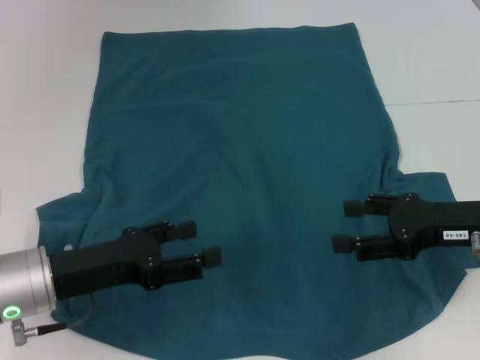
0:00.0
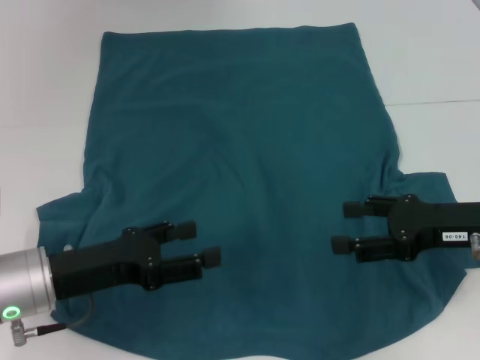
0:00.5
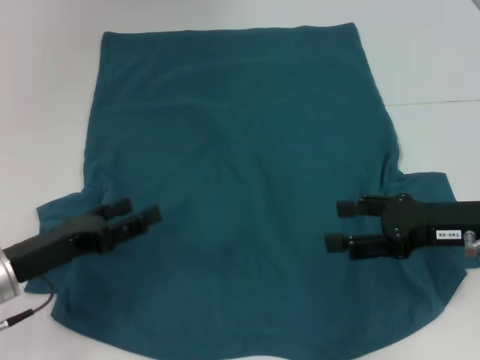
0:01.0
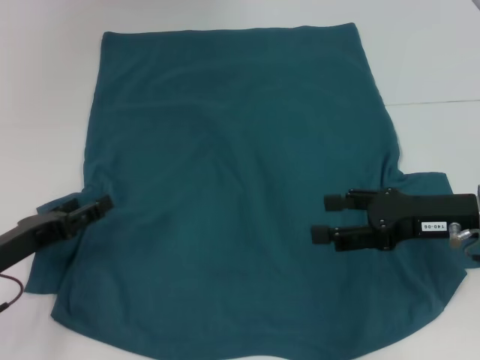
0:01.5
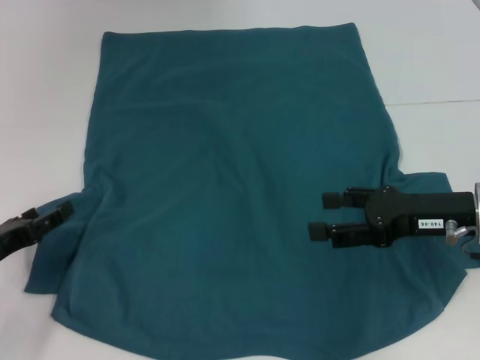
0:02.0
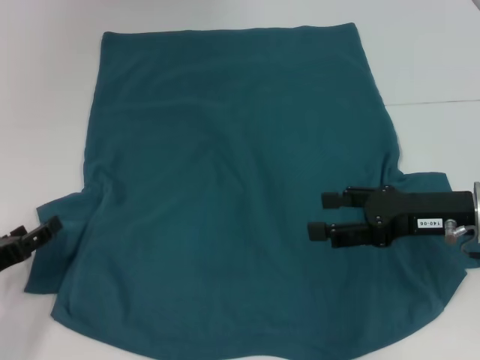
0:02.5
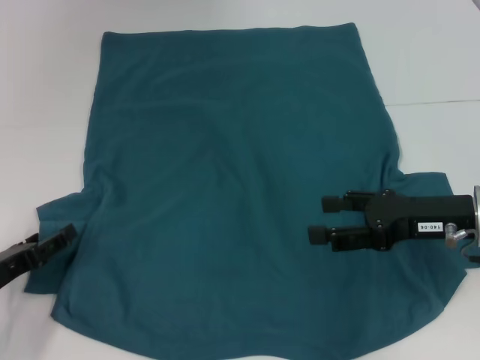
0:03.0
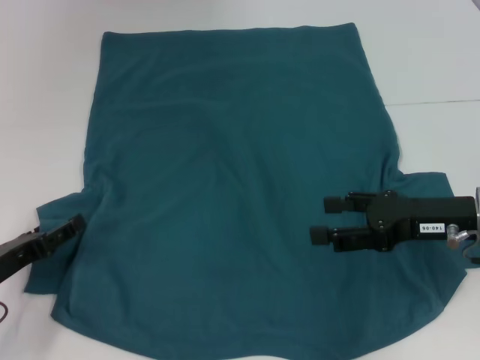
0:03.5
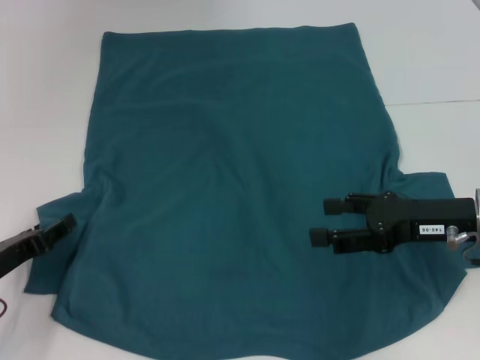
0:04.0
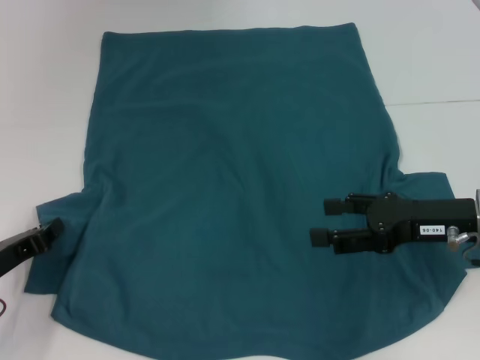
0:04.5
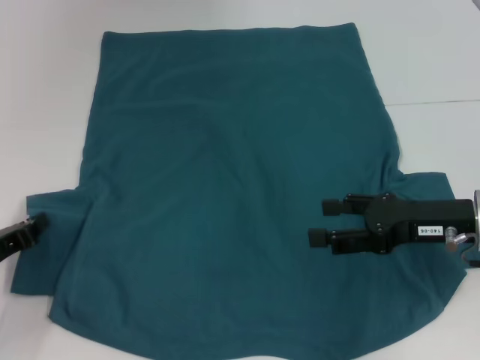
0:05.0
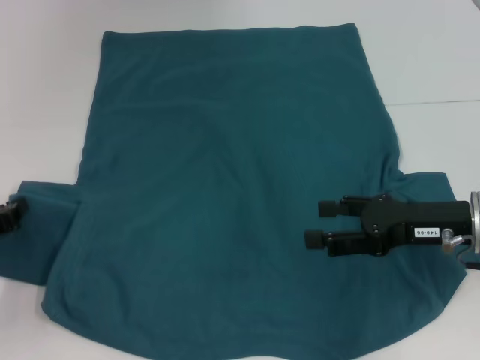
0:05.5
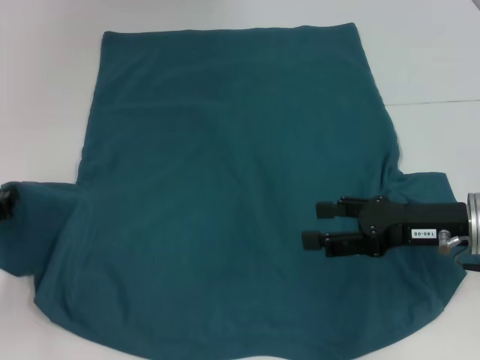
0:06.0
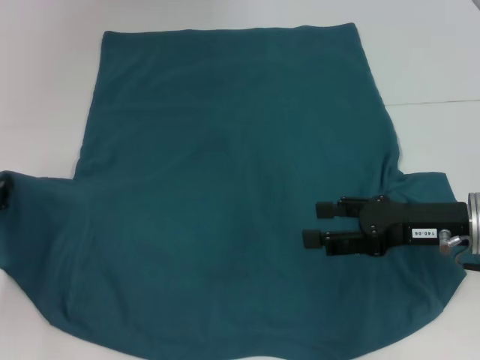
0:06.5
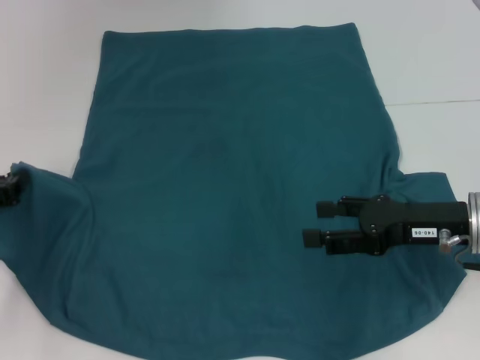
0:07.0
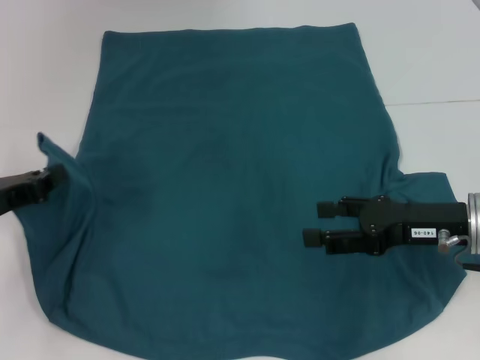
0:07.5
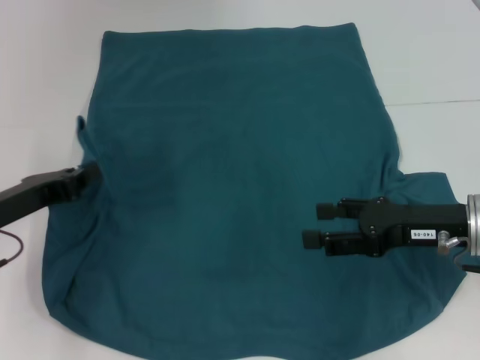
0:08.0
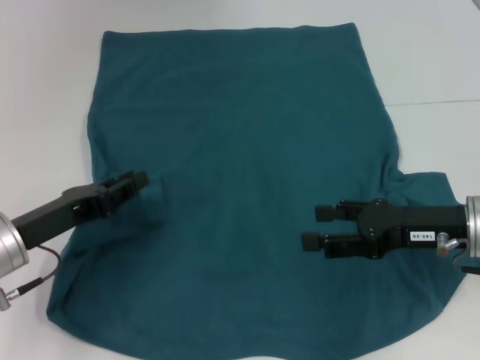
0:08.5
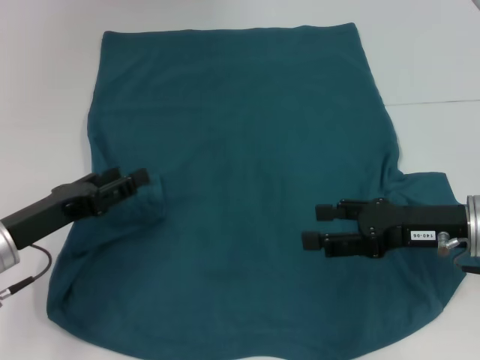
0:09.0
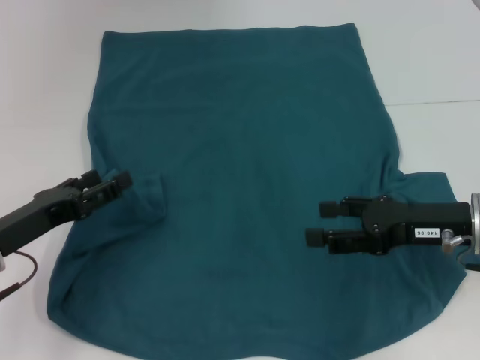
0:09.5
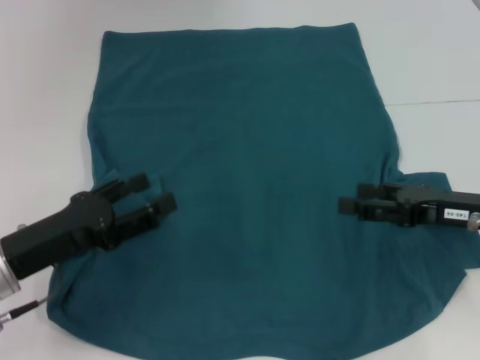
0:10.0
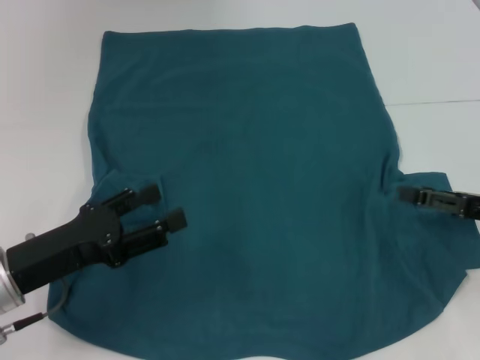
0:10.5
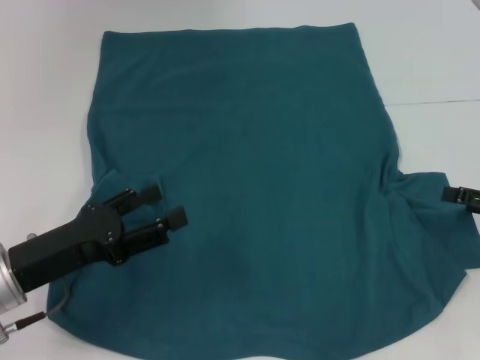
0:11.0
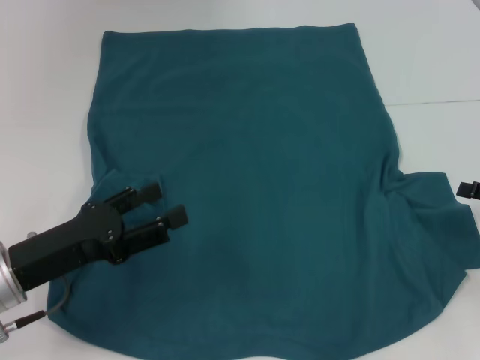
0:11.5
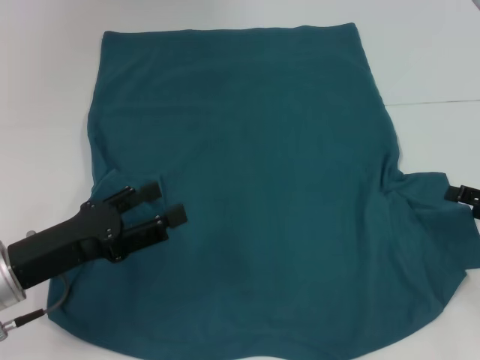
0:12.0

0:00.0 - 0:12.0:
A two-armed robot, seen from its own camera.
Step, 0:00.0 - 0:09.5: Fold the bottom left sleeve with your left hand.
0:00.0 - 0:02.0: The left gripper goes approximately 10 cm to the left.
0:02.0 - 0:04.0: There are only small adjustments of the grippers.
0:04.0 - 0:06.0: The left gripper ends up about 5 cm from where it was, and closes its fingers.
0:06.0 - 0:08.0: The left gripper shifts some 5 cm to the right.
0:08.0 - 0:10.0: The left gripper shifts by approximately 5 cm, and opens.
0:10.0 - 0:12.0: The right gripper is displaced to the right by roughly 10 cm.

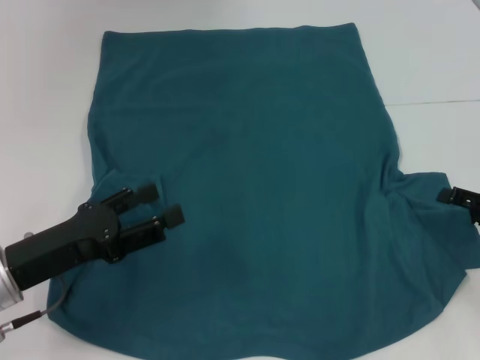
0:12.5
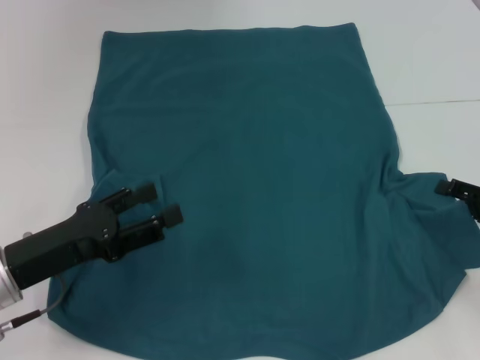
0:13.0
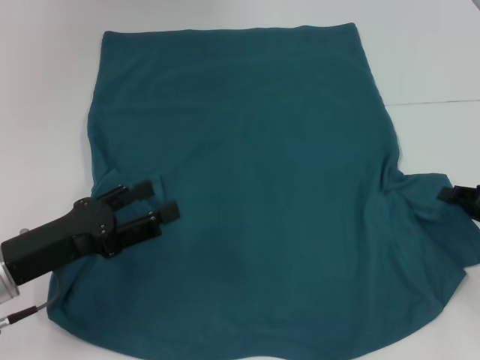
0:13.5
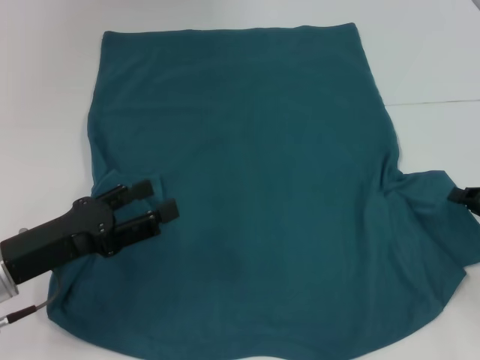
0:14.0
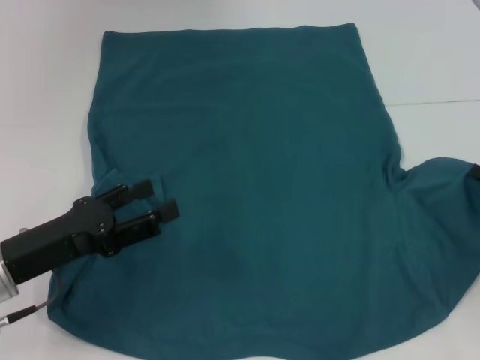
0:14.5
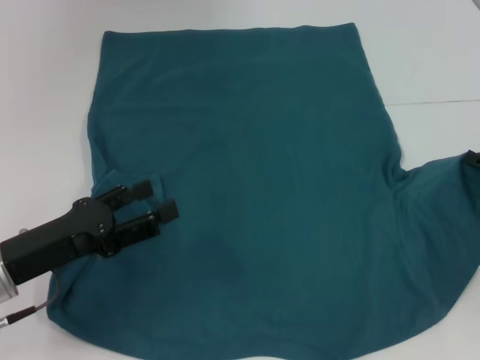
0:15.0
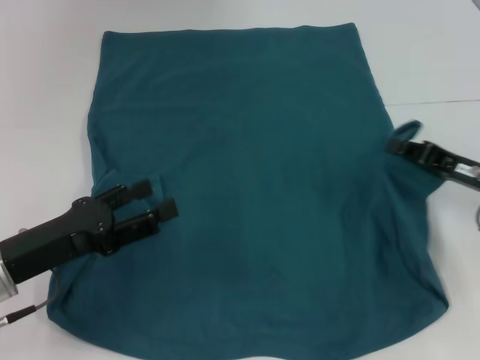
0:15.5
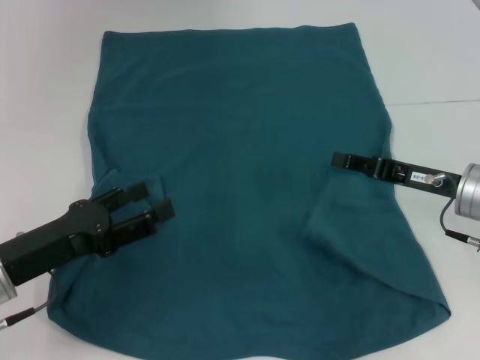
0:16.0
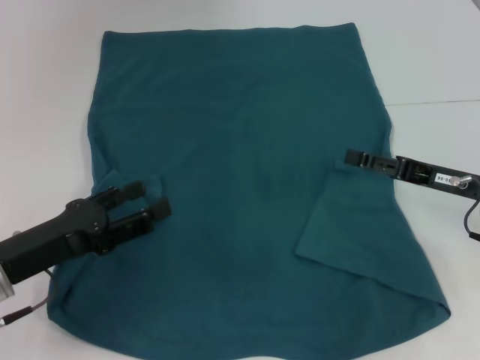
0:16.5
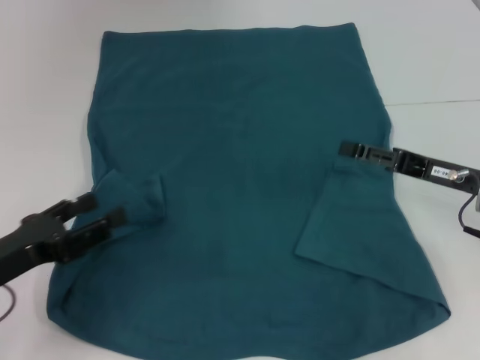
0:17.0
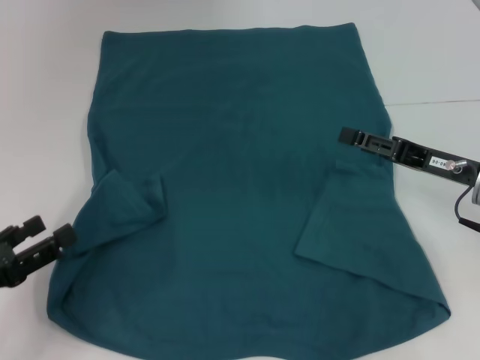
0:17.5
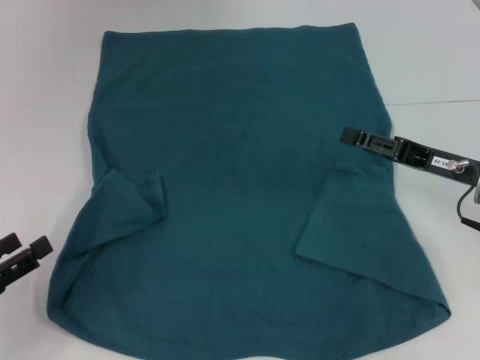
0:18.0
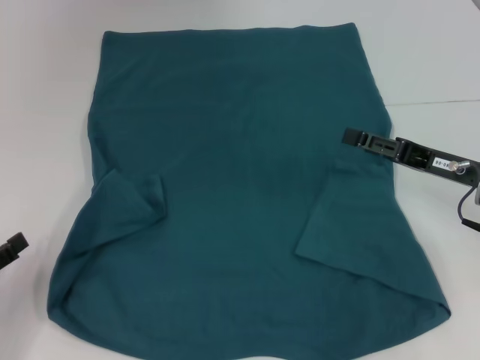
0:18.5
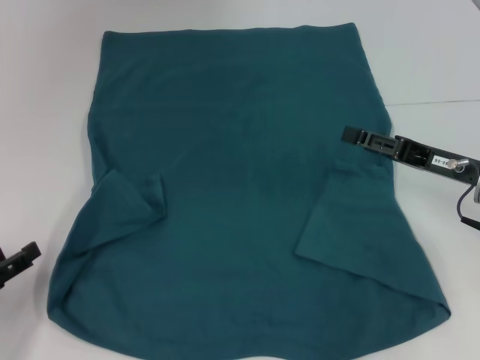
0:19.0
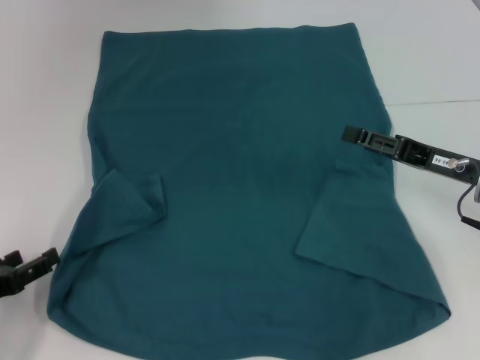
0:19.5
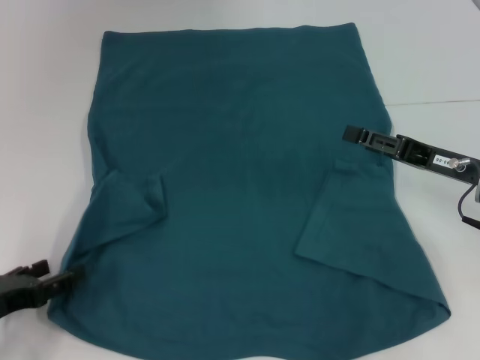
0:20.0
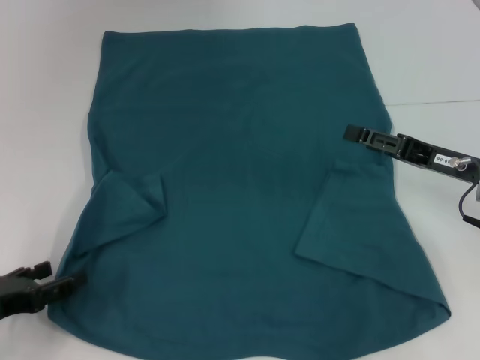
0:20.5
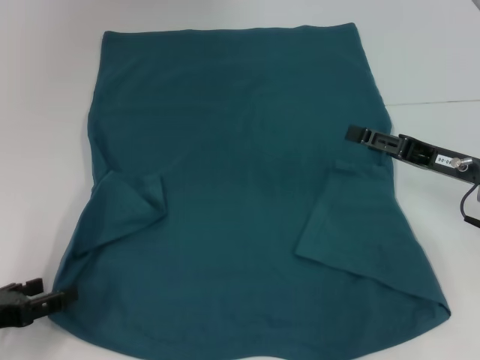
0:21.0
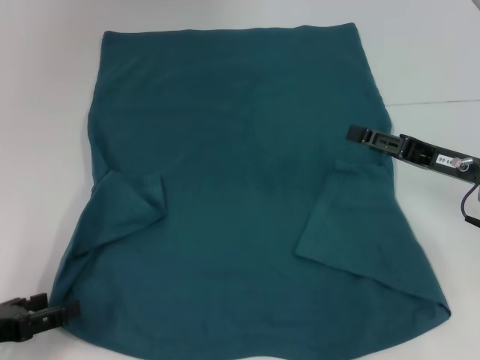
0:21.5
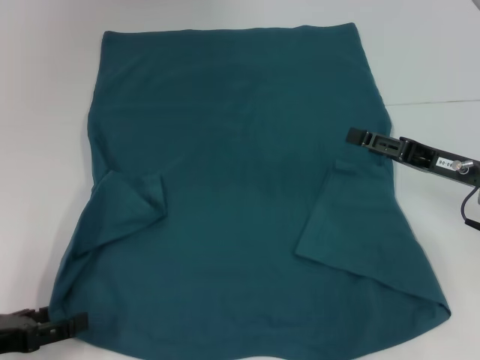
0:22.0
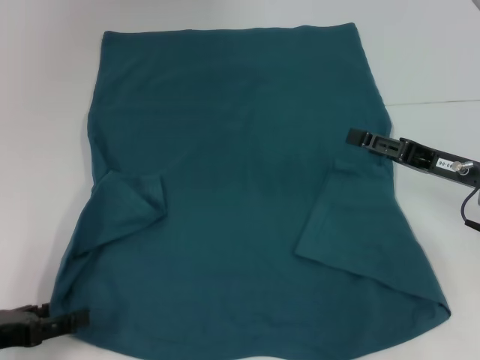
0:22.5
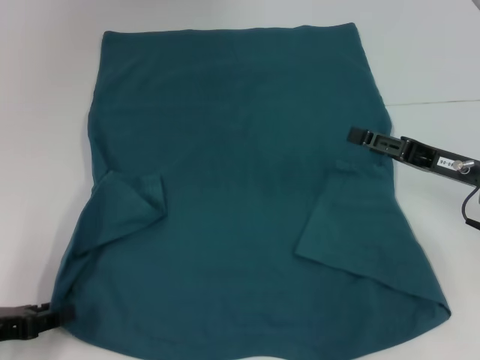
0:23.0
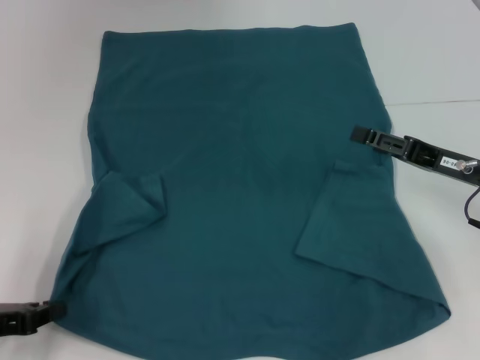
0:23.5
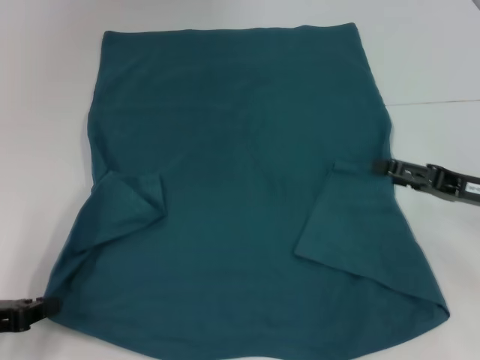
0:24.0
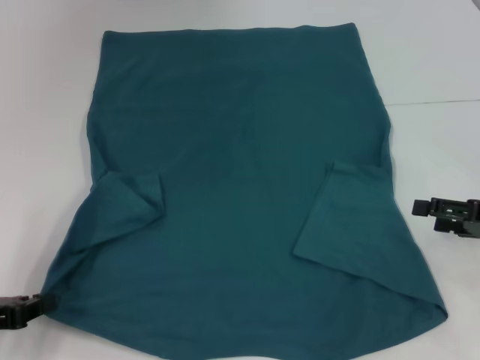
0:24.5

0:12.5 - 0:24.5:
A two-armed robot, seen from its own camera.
Step, 0:12.5 - 0:16.0: Fold the bottom right sleeve to the right.
0:12.5 - 0:14.5: The right gripper closes its fingers.
0:14.5 - 0:16.5: The right gripper is displaced to the left by approximately 10 cm, and opens its fingers.
0:16.5 - 0:18.5: The right gripper opens its fingers. The left gripper moves to the left, approximately 10 cm.
0:18.5 - 0:20.5: The grippers move only a little.
0:20.5 - 0:22.5: There are only small adjustments of the grippers.
0:22.5 - 0:24.5: The right gripper travels to the right by about 5 cm, while the left gripper closes.

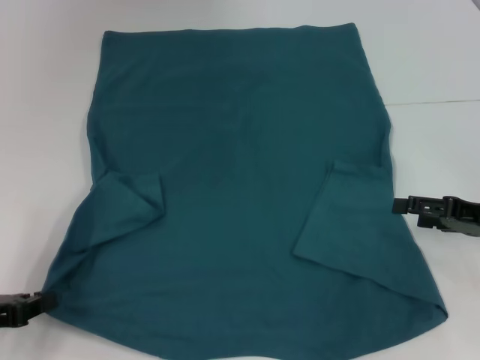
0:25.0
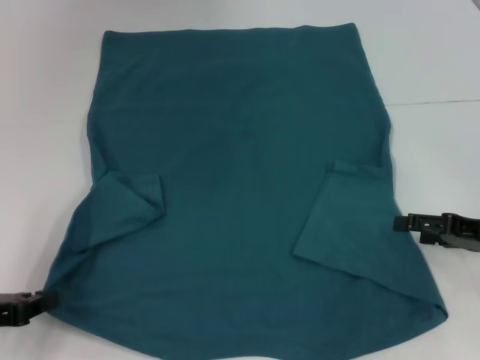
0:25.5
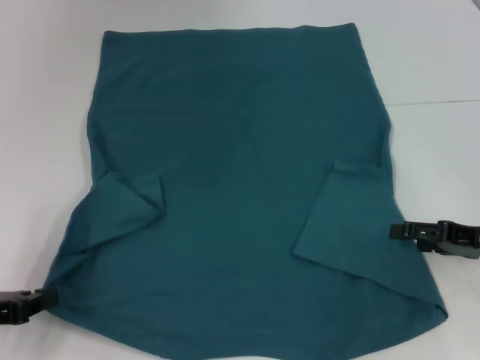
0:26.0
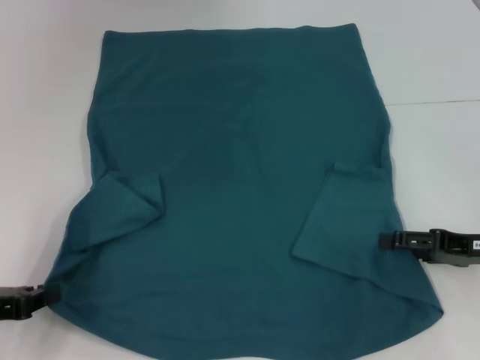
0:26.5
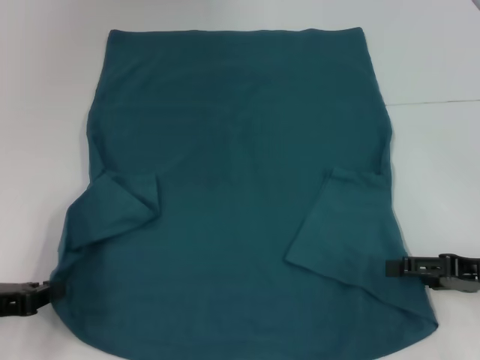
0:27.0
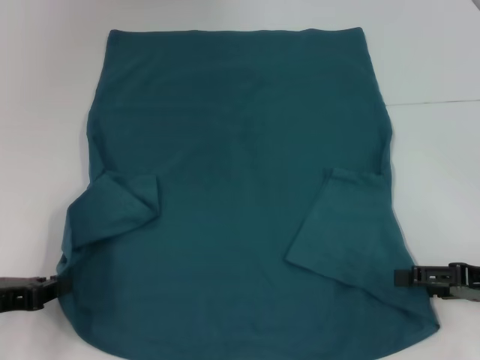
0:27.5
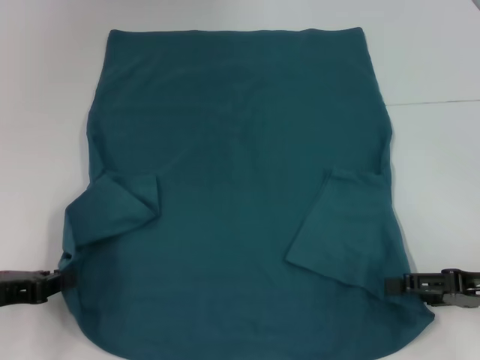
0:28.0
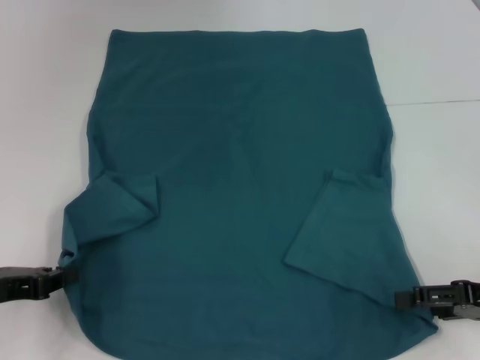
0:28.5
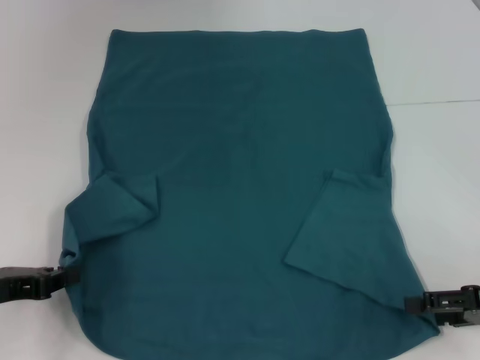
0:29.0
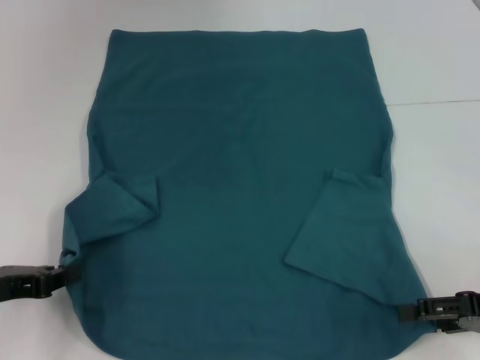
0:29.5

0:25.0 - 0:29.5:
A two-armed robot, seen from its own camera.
0:25.0 - 0:27.0: The grippers make only small movements.
0:27.0 - 0:29.5: There are only small adjustments of the grippers.
